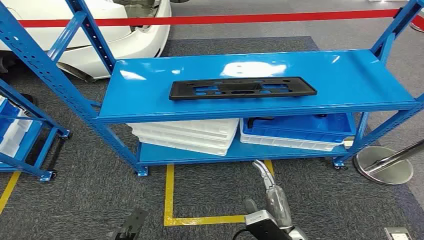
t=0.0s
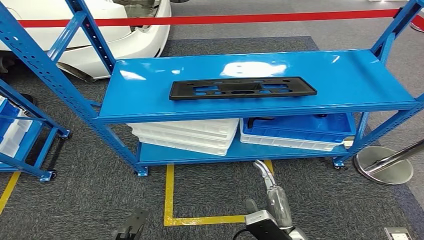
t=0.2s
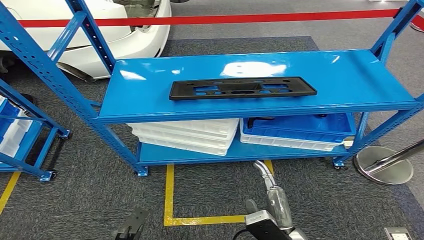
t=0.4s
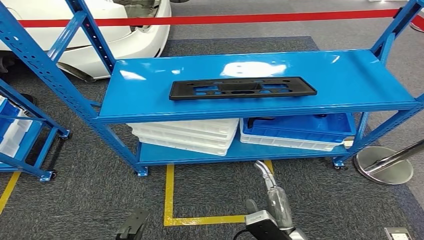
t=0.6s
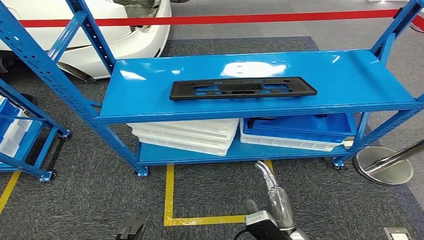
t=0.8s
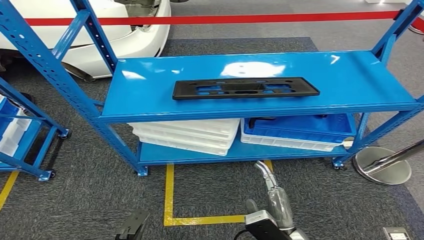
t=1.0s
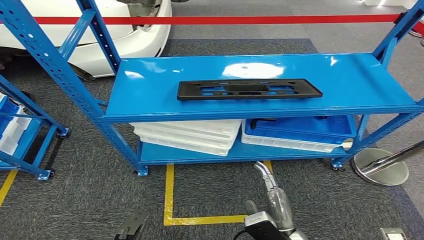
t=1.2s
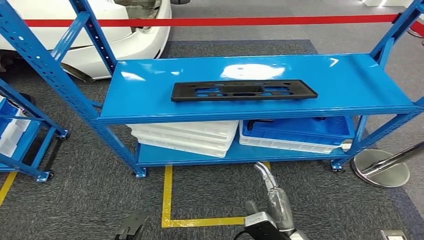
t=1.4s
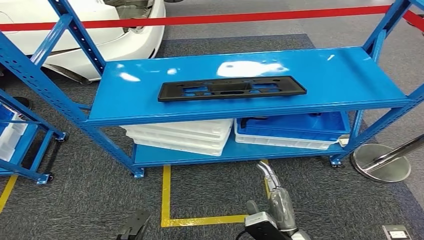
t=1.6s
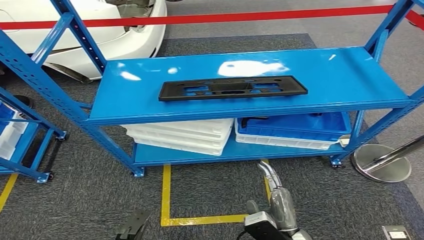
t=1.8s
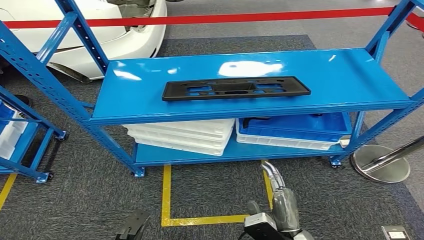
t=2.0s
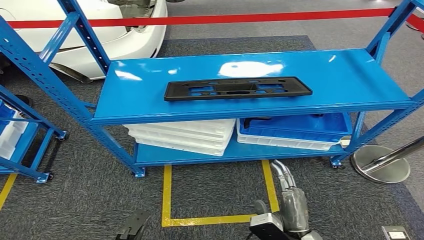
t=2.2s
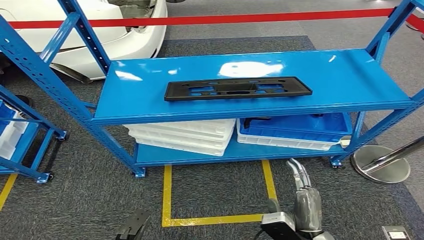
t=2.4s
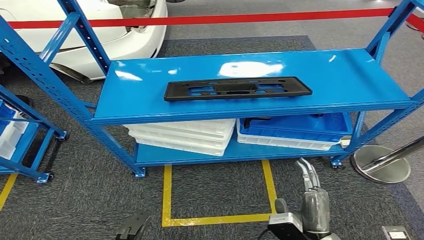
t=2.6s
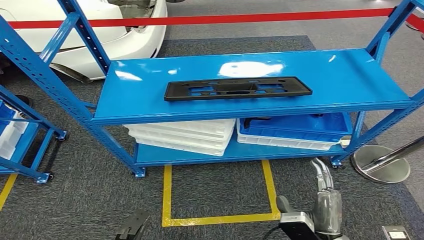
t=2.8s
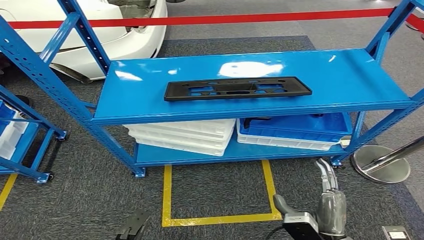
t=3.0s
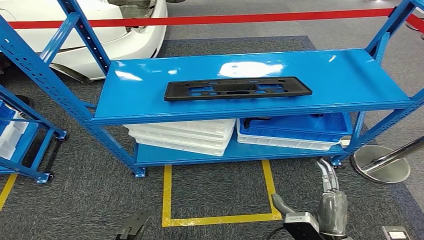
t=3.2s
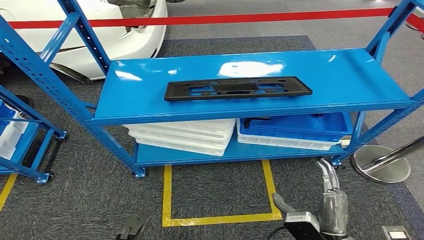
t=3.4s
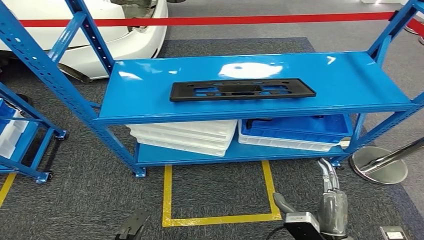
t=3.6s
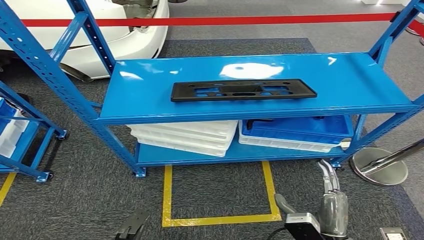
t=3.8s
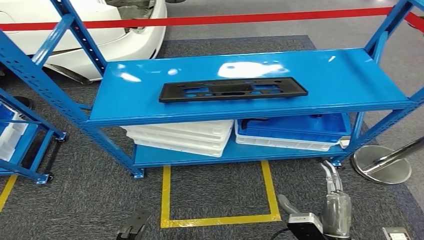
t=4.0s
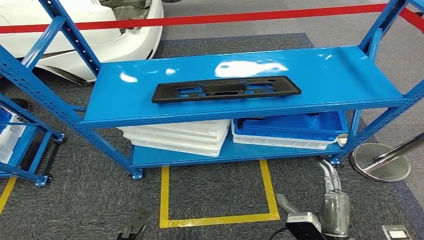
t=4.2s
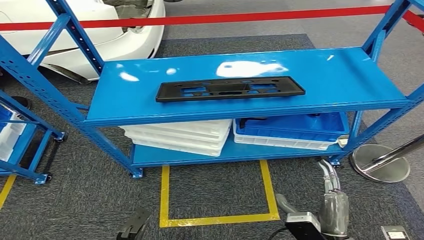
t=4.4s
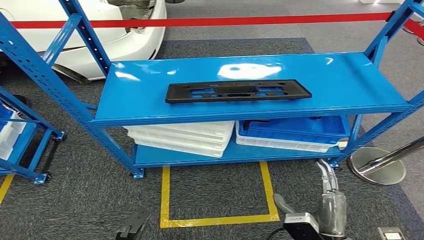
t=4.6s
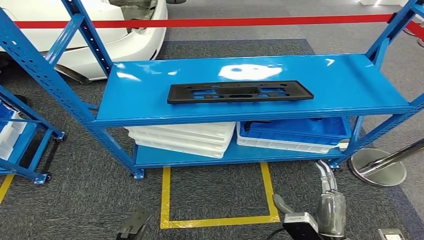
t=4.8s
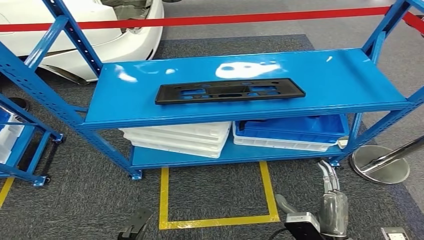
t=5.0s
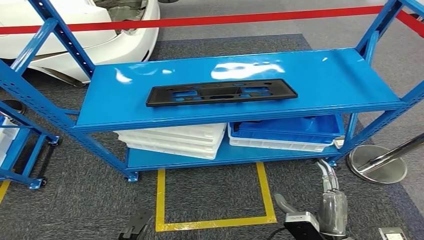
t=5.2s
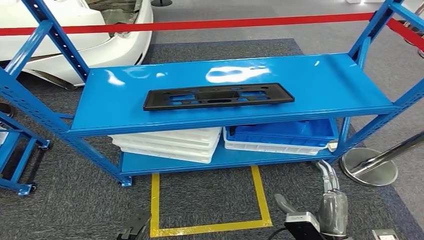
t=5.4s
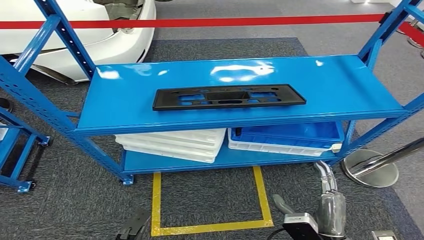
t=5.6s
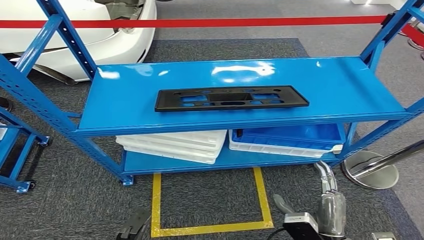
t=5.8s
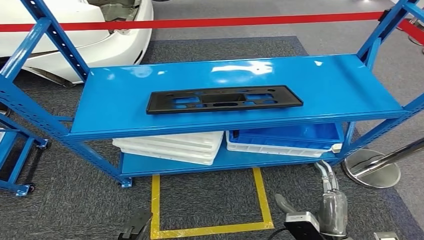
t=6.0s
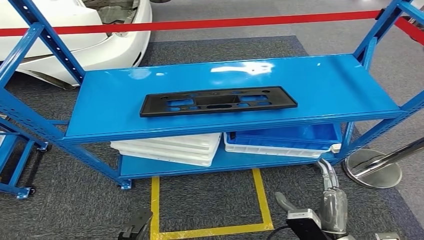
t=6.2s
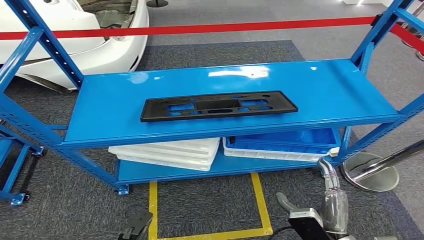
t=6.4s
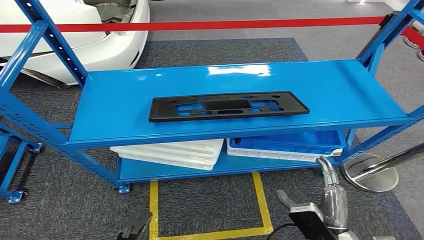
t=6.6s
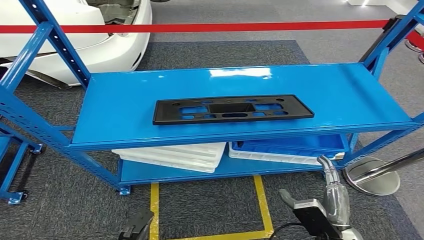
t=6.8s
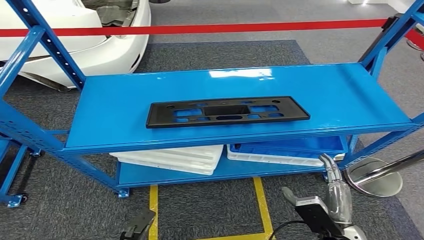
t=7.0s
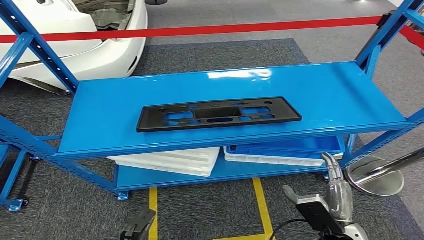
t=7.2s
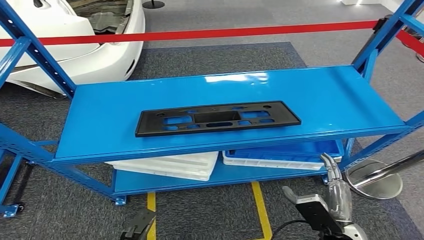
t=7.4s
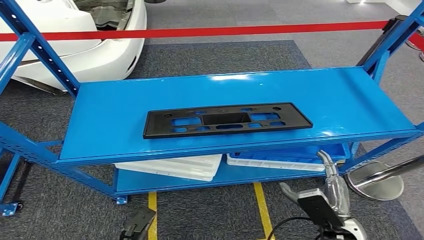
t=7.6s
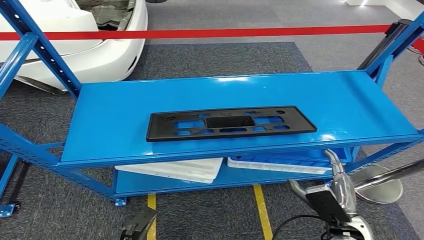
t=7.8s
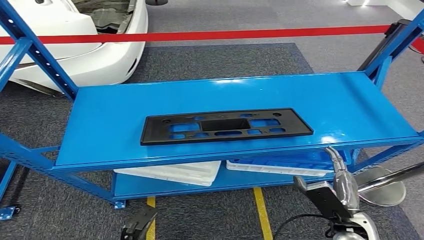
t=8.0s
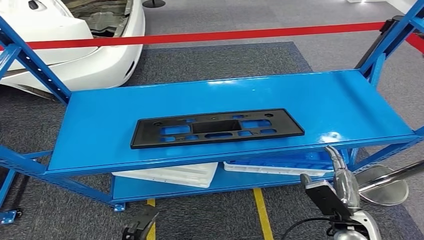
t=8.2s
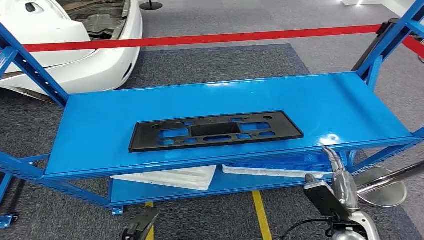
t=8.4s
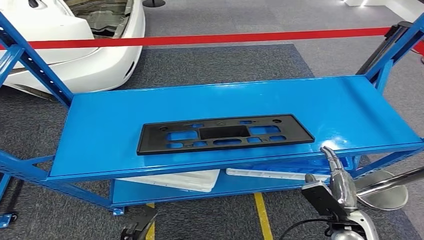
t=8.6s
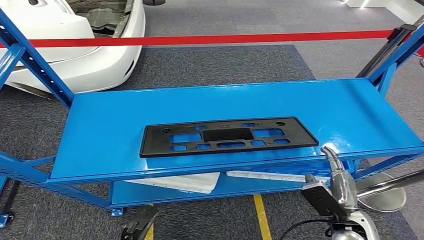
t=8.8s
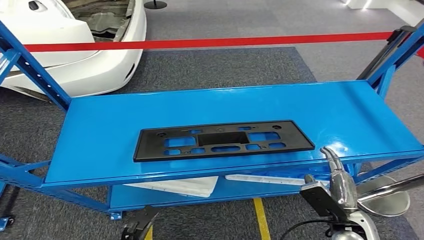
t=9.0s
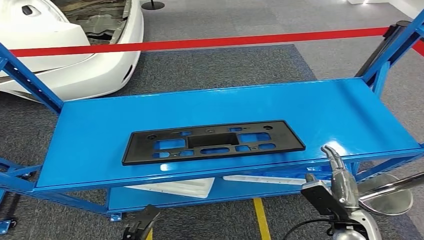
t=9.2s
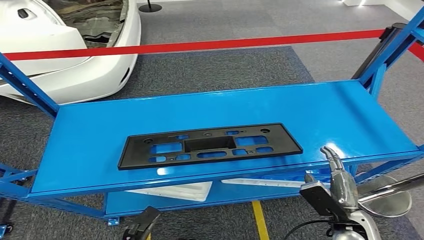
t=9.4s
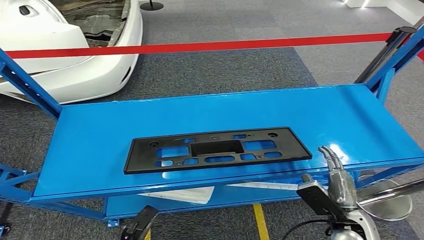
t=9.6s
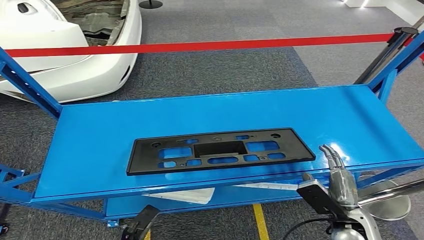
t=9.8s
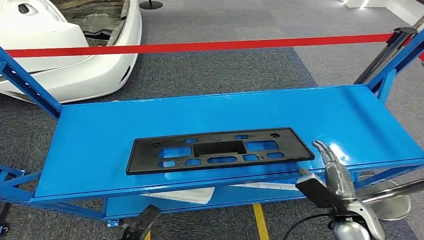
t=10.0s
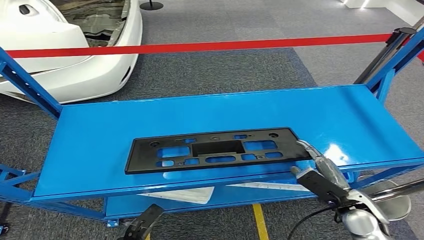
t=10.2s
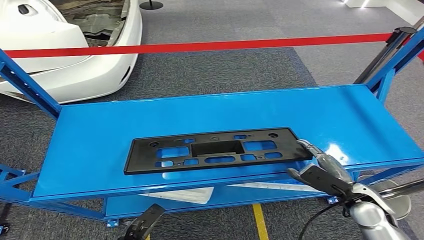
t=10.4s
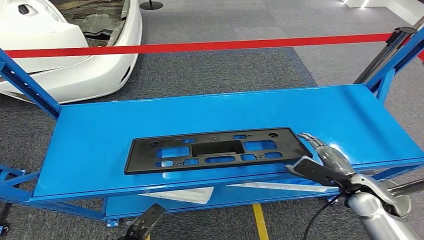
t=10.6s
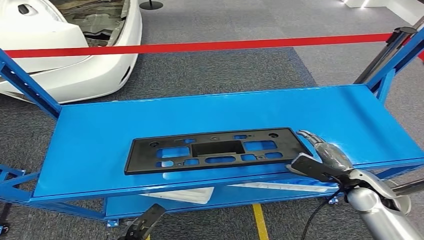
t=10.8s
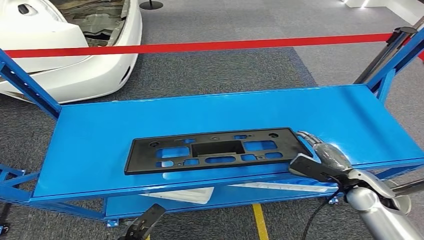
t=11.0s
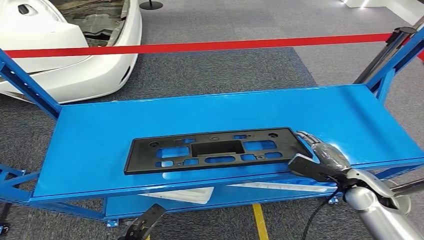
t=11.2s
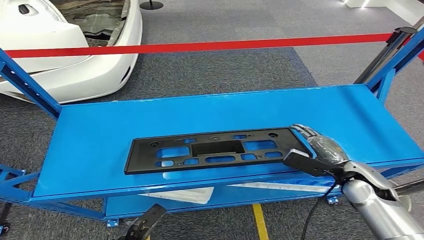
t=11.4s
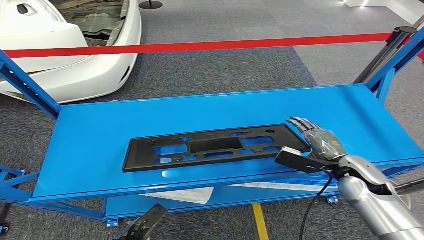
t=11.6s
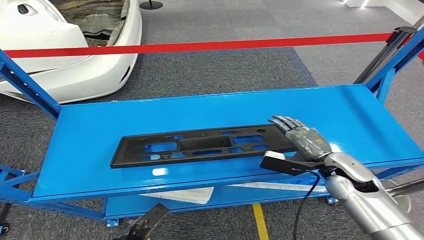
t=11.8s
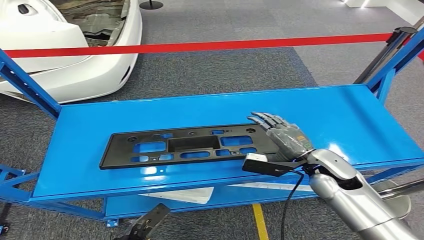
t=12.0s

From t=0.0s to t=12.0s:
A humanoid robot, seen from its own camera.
From t=1.6s to t=3.0s: The right hand heads to the right, covering some 5 cm.
From t=3.0s to t=4.4s: Both hands stay put.
From t=10.4s to t=12.0s: The right hand moves to the left, upward and forward, some 15 cm.

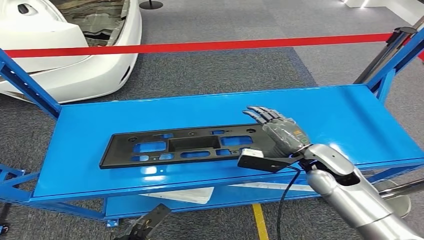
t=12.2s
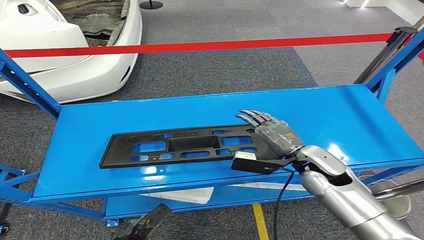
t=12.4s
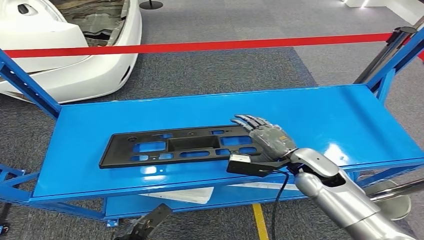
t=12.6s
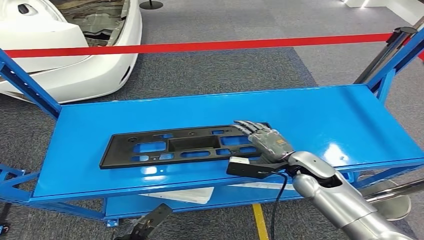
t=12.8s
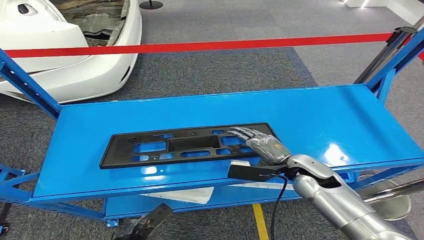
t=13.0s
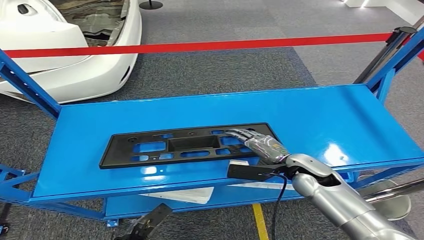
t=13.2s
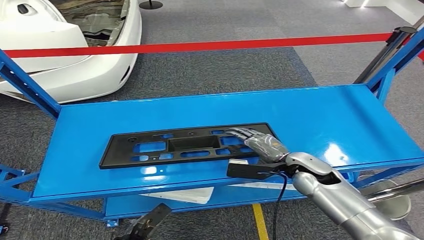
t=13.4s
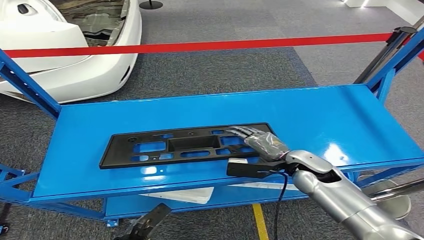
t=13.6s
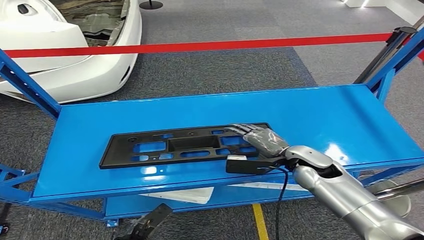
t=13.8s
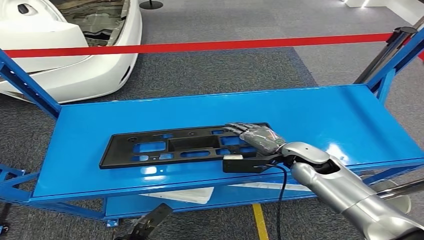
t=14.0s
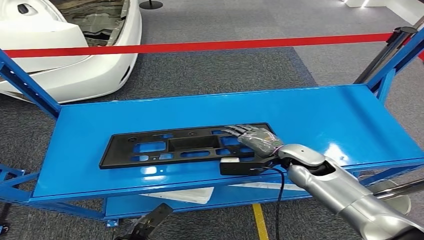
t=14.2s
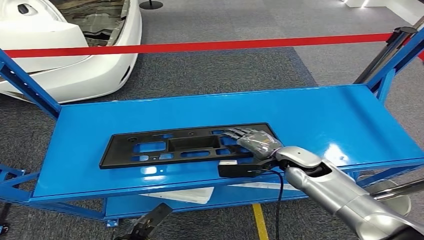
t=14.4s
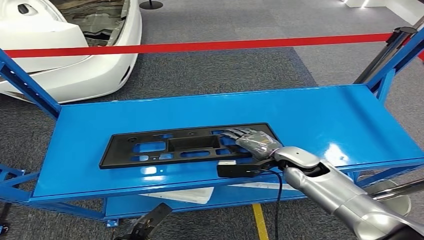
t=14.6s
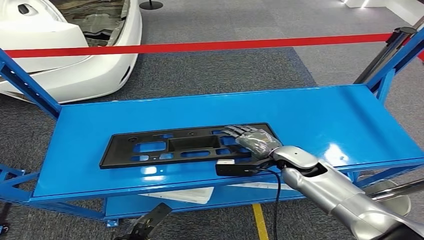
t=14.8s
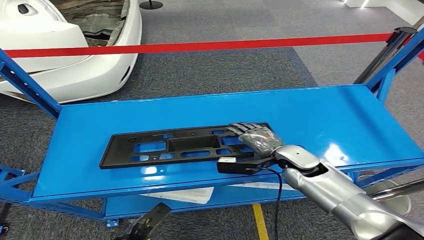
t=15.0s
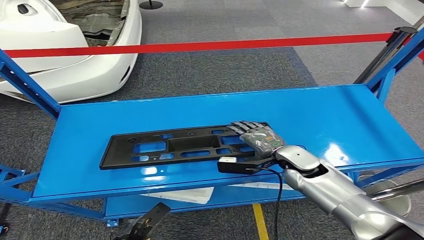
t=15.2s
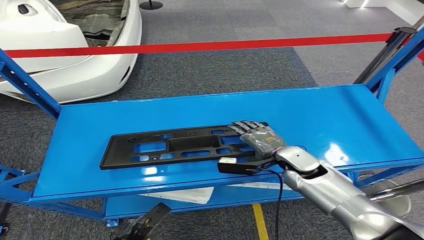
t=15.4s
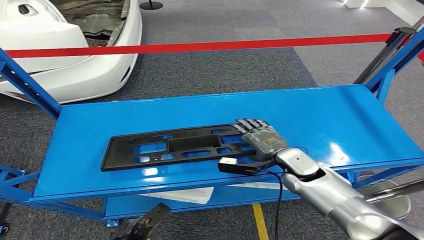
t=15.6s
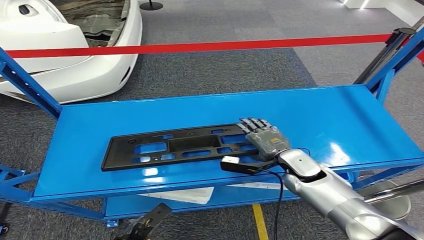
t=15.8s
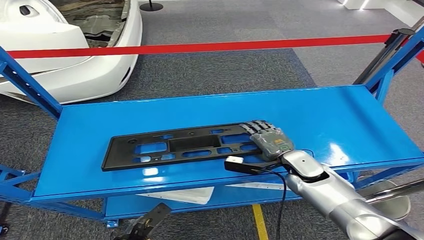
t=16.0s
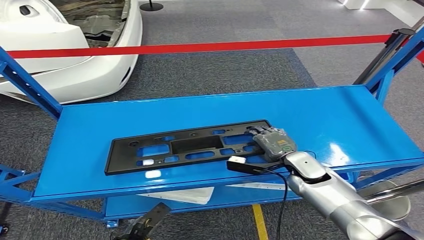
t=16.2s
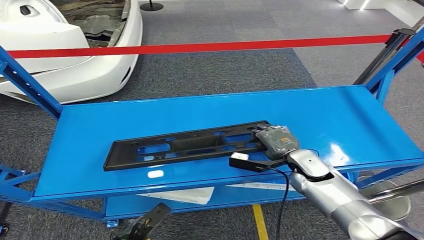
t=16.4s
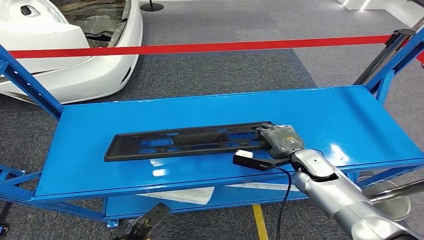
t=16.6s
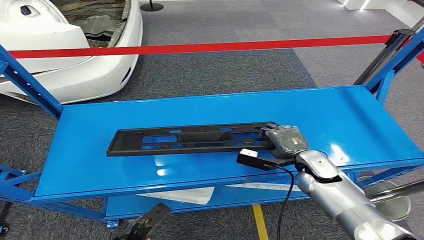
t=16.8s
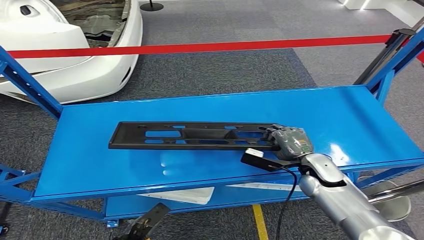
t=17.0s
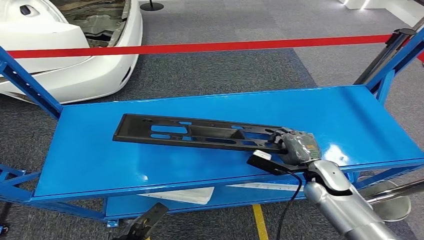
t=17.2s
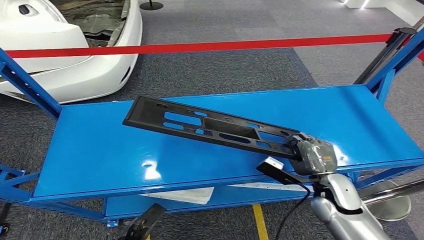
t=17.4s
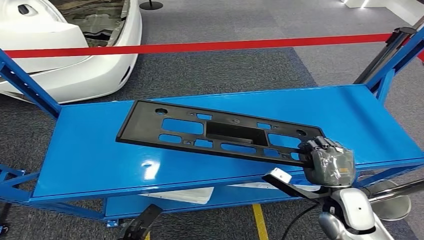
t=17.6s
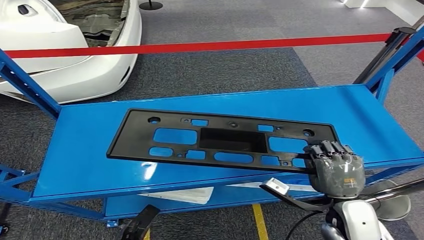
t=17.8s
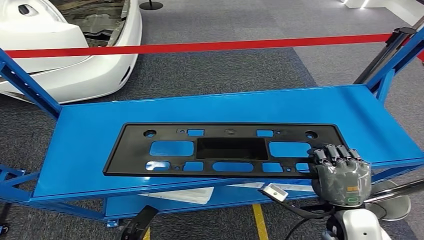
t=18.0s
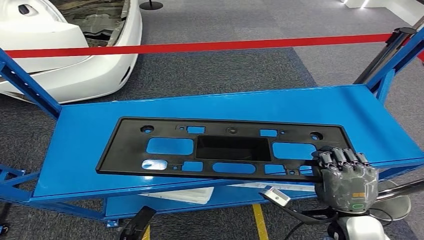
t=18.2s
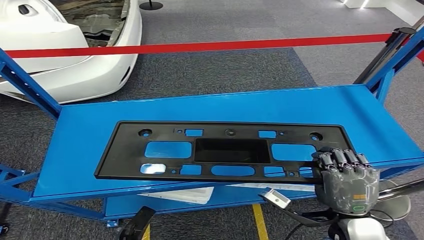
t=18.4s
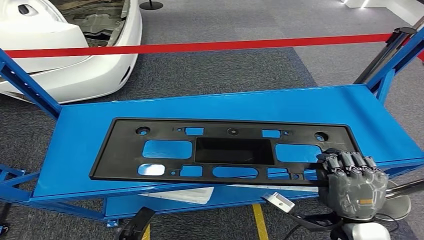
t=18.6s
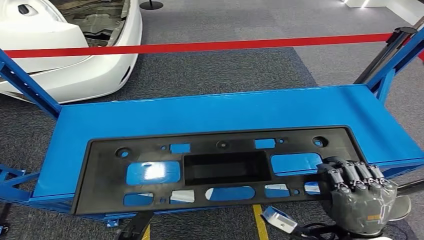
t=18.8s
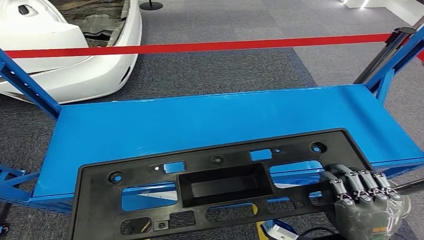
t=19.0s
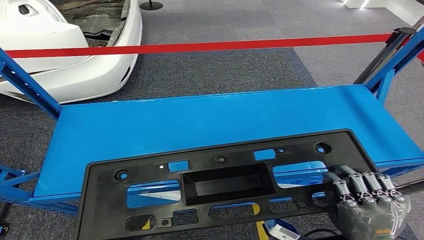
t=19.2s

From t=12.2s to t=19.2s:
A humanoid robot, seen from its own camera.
Step, from t=12.2s to t=18.0s: Pick up the large material from the shelf.
From t=12.2s to t=13.6s: The hands stay close to where they were, moving slightly.
From t=13.6s to t=15.0s: There are only small adjustments of the hands.
From t=15.0s to t=16.4s: The hands stay close to where they were, moving slightly.
